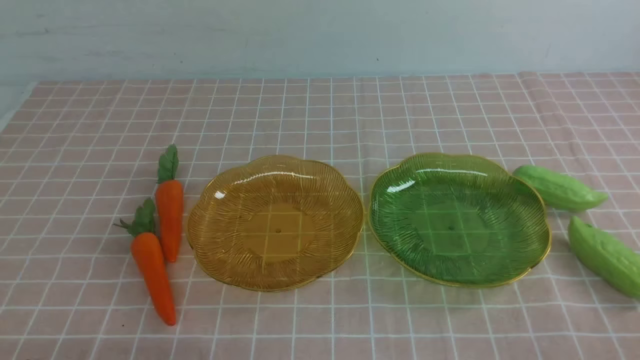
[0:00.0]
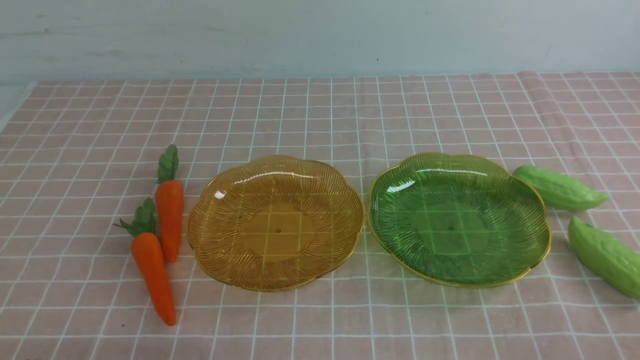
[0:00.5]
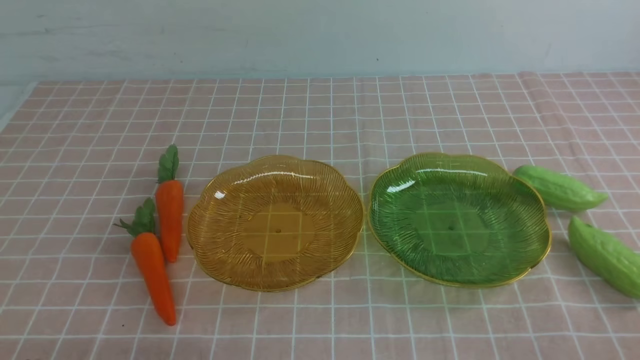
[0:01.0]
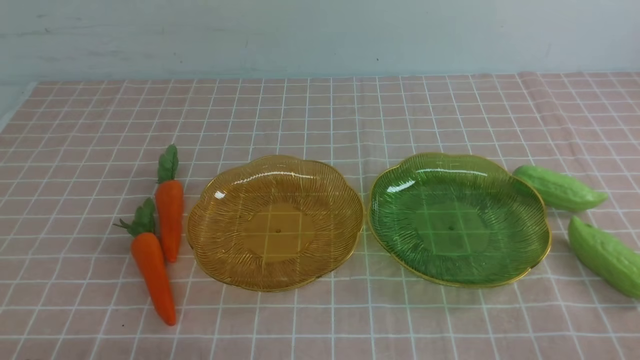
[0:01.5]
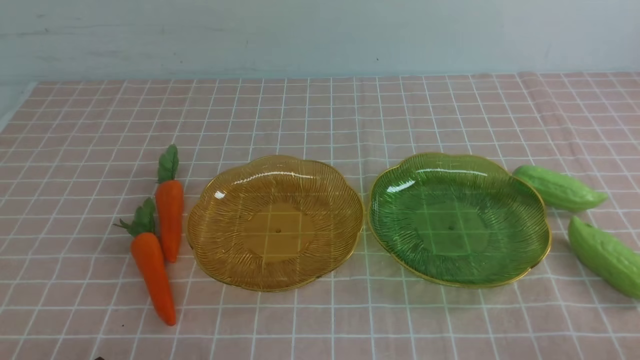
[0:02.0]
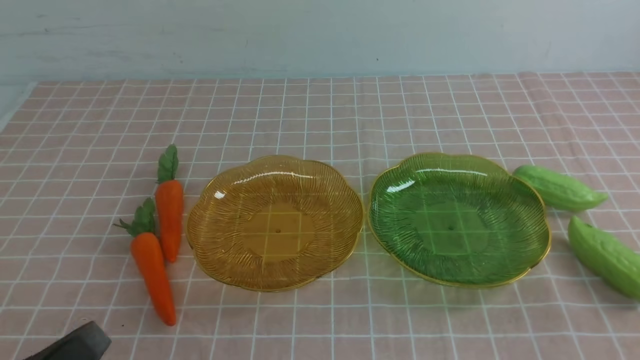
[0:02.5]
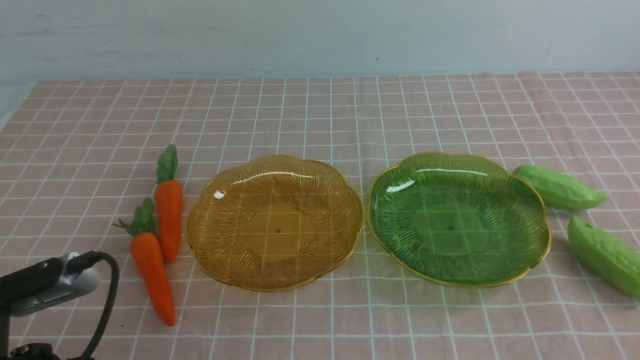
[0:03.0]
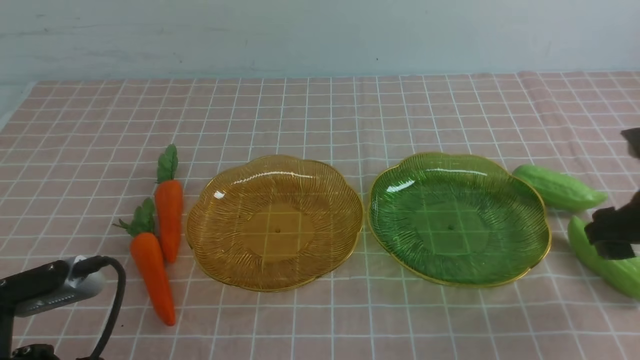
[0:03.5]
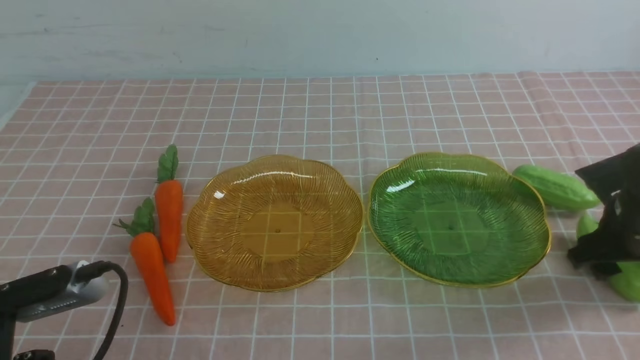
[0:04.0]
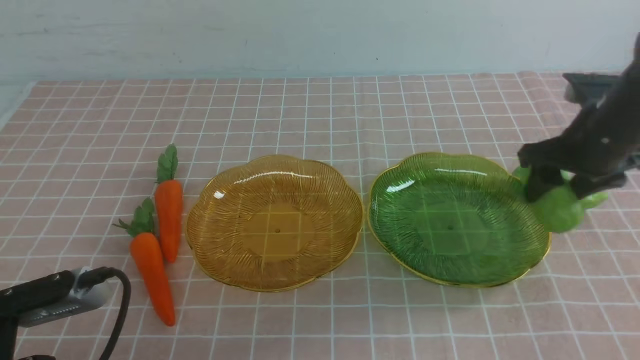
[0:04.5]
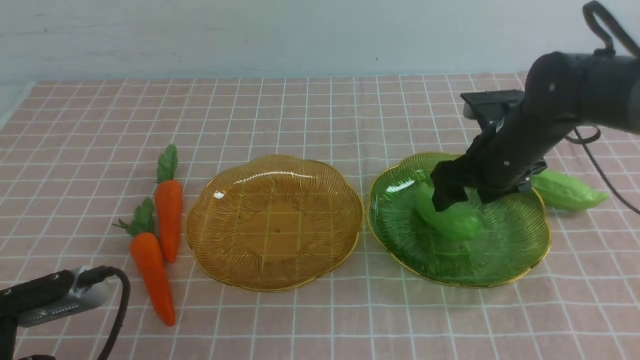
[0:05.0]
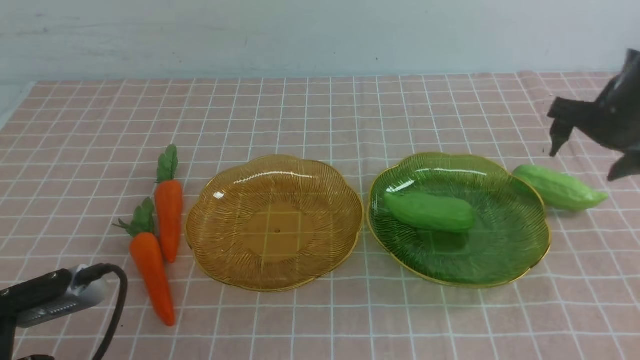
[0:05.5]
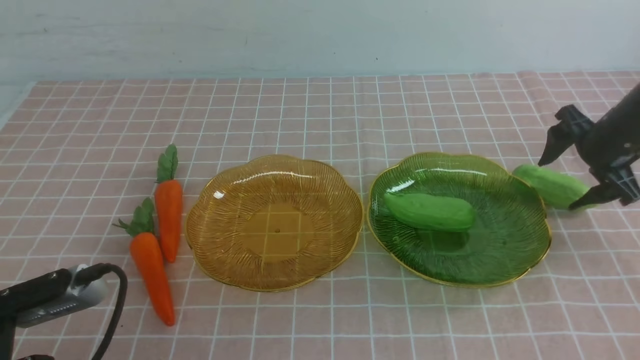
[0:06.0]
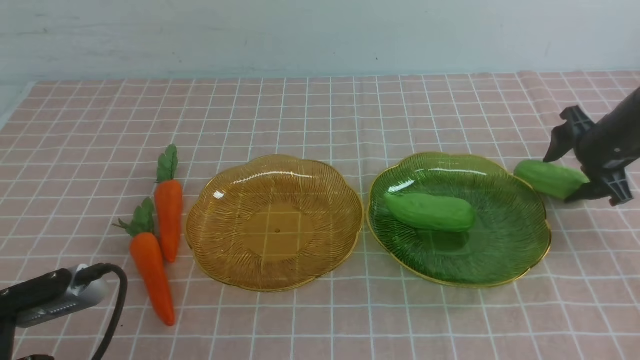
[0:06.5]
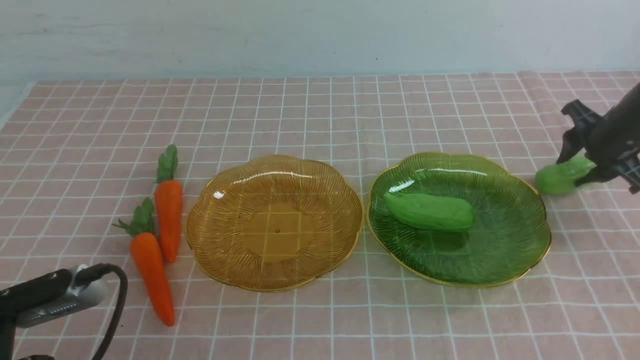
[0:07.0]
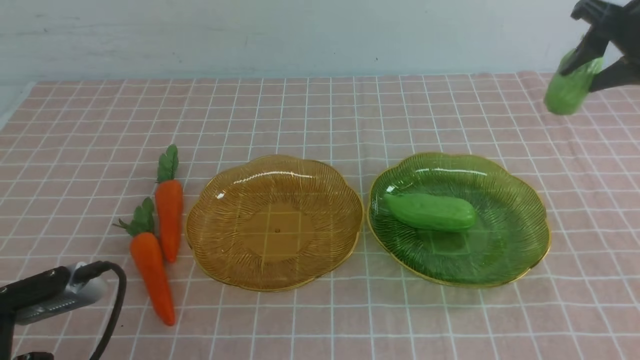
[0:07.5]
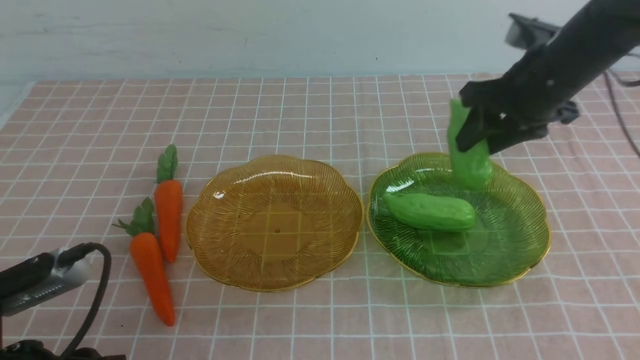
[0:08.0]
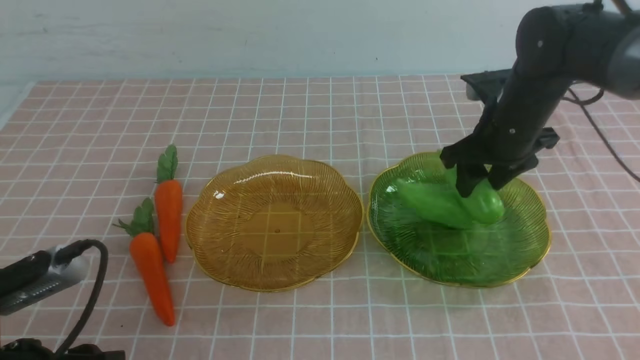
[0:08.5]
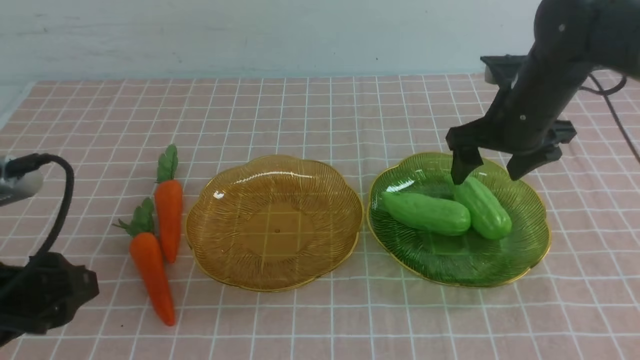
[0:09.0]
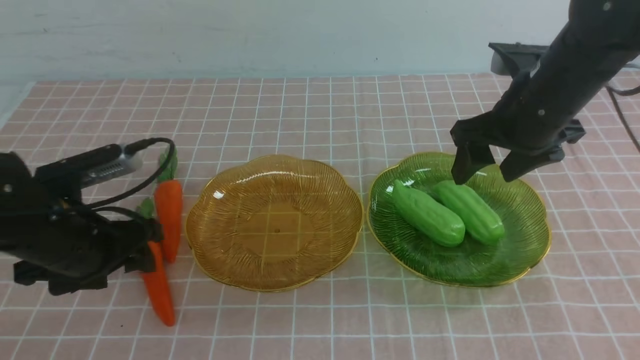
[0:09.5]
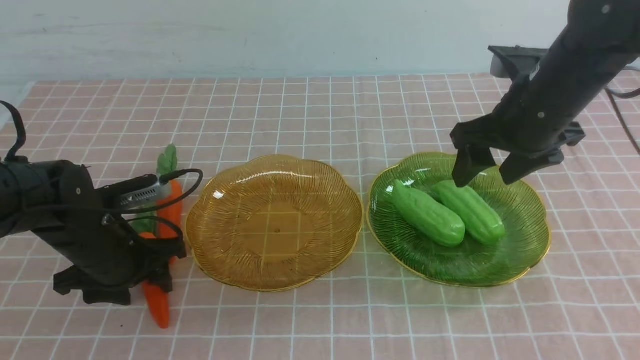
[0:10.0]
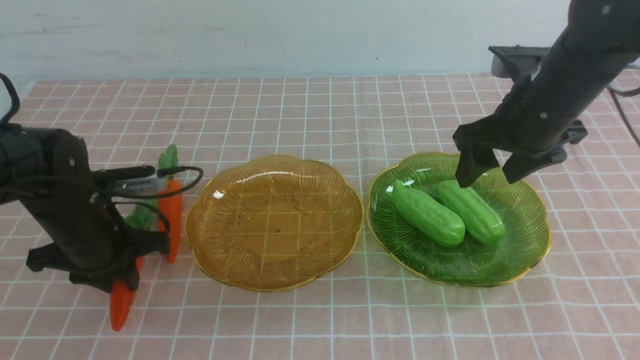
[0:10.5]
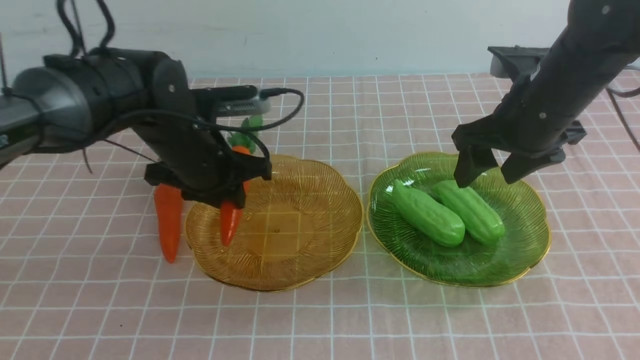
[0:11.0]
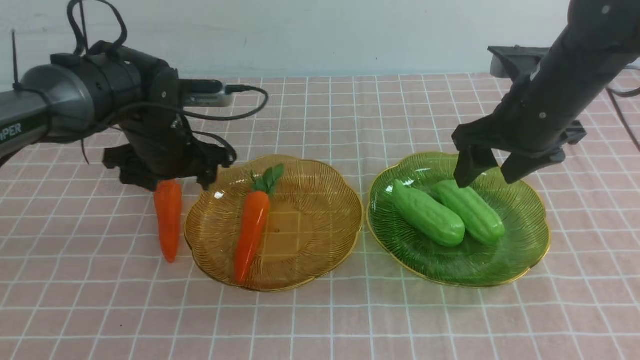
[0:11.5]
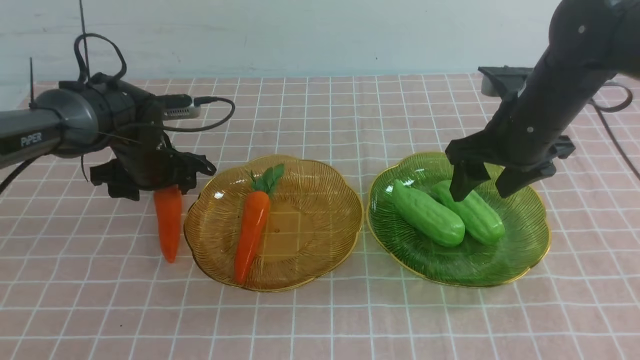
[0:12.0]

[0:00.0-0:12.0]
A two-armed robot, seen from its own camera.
Step, 0:00.0 to 0:05.0: use the right arm to grab a chayote and put it into the right plate.
Step, 0:05.5 to 0:08.5: use the right arm to grab a chayote and put it into the right plate.
Step, 0:09.0 to 0:11.0: use the left arm to grab a carrot and put it into the left plate.
0:02.0 to 0:04.0: The left gripper goes some 10 cm forward and upward, and opens. Meanwhile the right gripper moves forward, approximately 30 cm, and opens up.
0:04.0 to 0:06.0: The right gripper goes roughly 10 cm forward, to the right and downward.
0:06.0 to 0:08.0: The right gripper is displaced to the left and upward by some 15 cm.
0:08.0 to 0:10.0: The right gripper heads upward, covering roughly 5 cm; the left gripper heads forward, covering roughly 20 cm.
0:10.0 to 0:12.0: The left gripper shifts about 10 cm forward, and opens, then closes again.

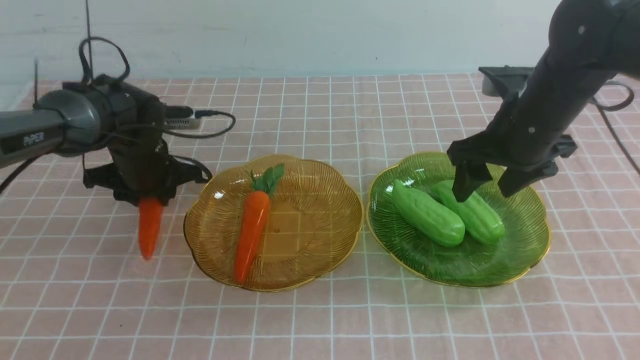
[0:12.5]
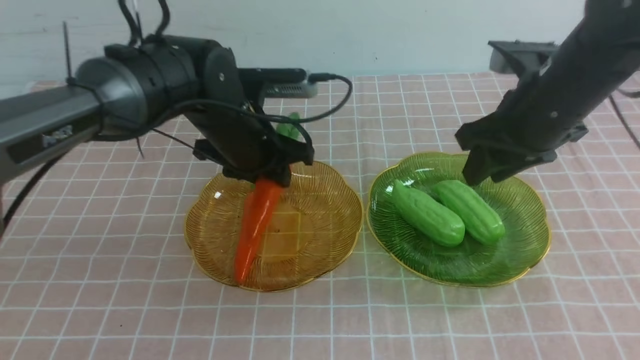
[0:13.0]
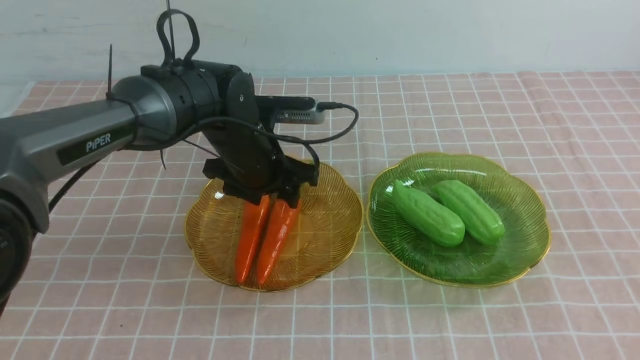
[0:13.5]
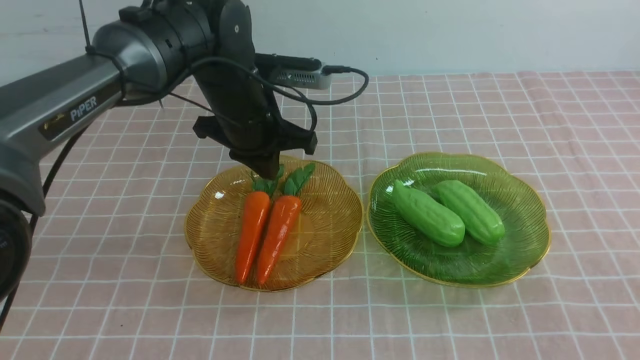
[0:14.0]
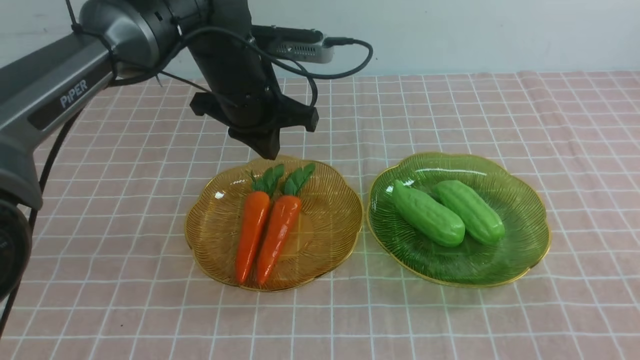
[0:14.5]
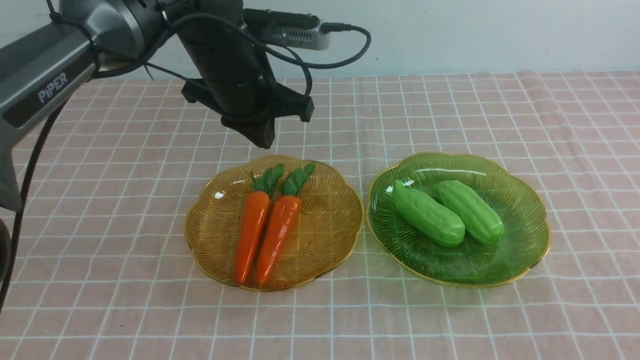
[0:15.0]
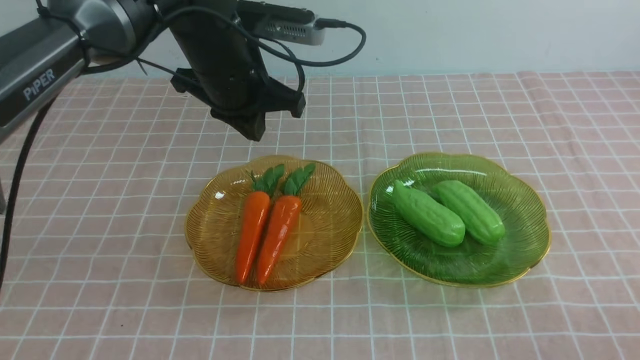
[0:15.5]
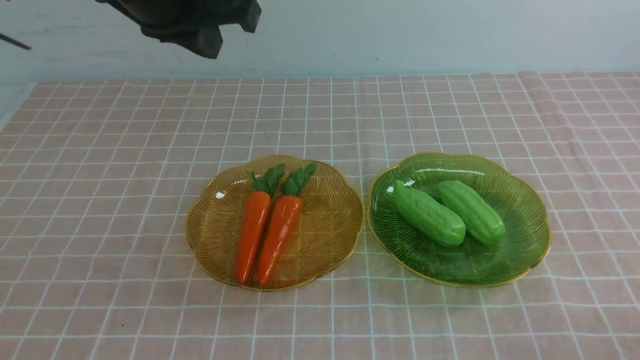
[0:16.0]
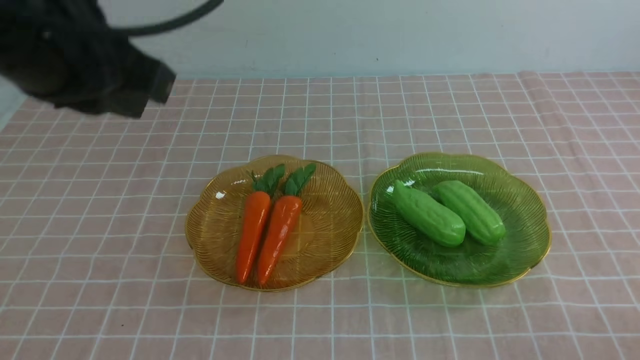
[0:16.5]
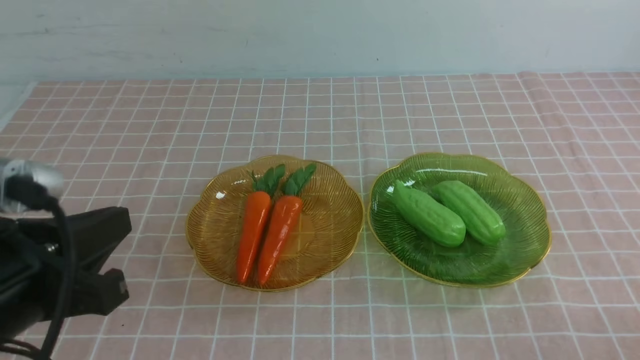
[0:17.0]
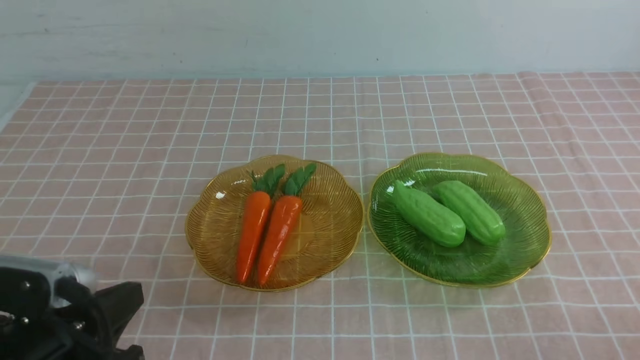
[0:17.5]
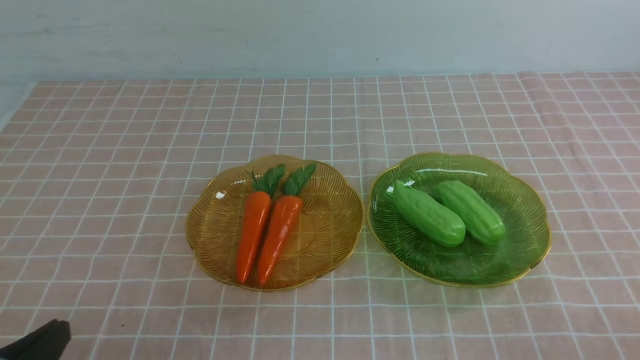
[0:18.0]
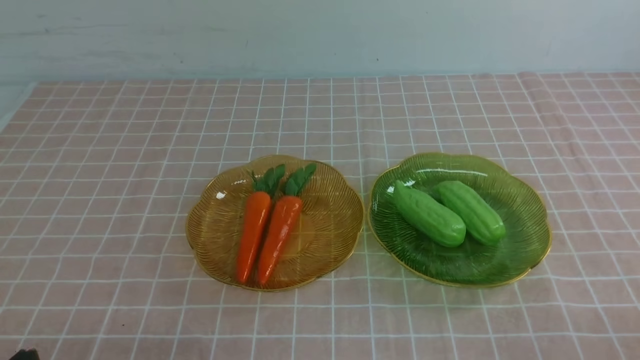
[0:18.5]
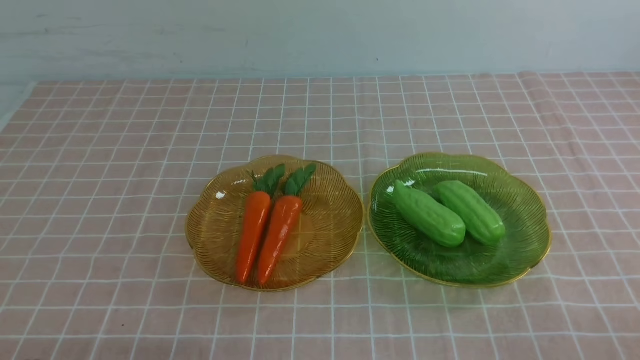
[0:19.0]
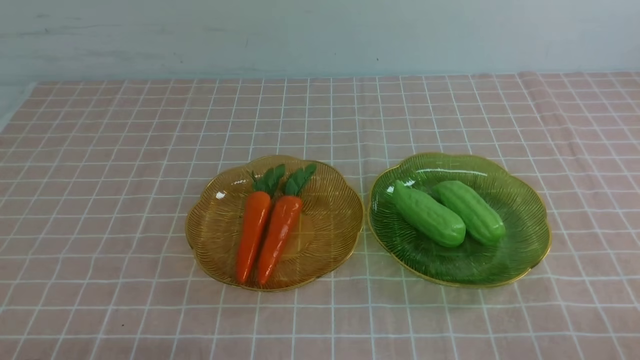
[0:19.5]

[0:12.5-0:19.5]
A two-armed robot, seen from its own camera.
0:12.5 to 0:14.5: The right gripper is displaced backward by about 30 cm, and closes, while the left gripper shifts approximately 5 cm upward, and closes its fingers.
0:14.5 to 0:16.0: The left gripper shifts approximately 25 cm backward and to the left, while the right gripper travels downward by approximately 10 cm.
0:16.0 to 0:17.5: The left gripper travels downward and backward by approximately 25 cm.
0:17.5 to 0:19.5: Both grippers stay put.

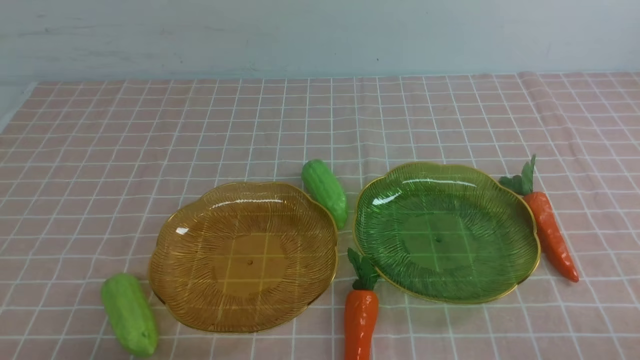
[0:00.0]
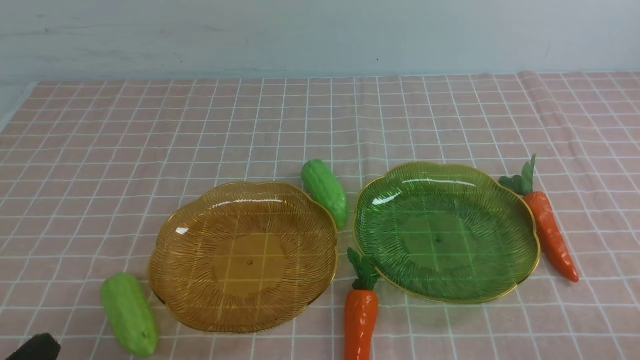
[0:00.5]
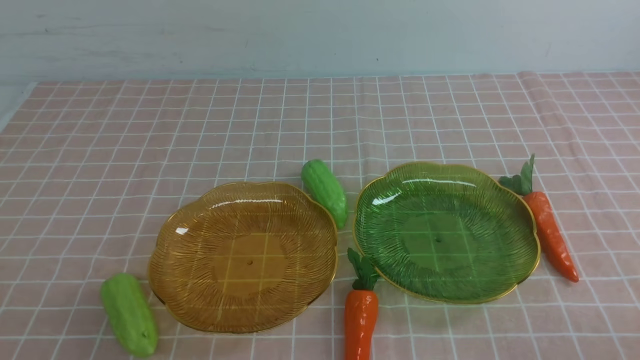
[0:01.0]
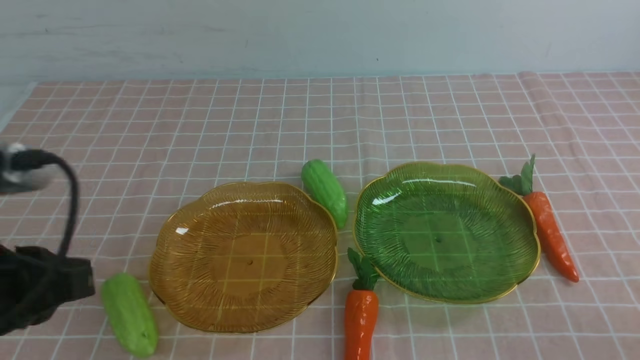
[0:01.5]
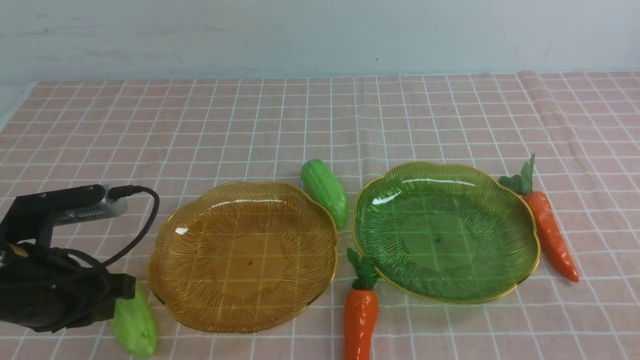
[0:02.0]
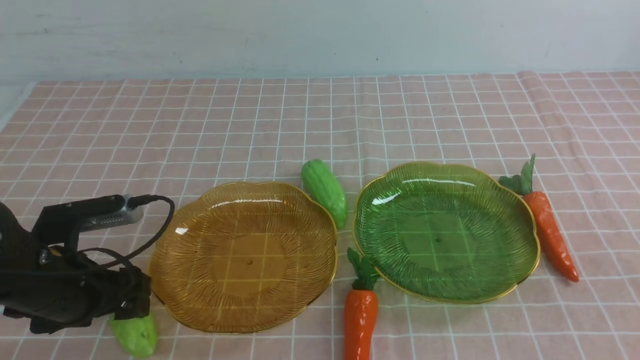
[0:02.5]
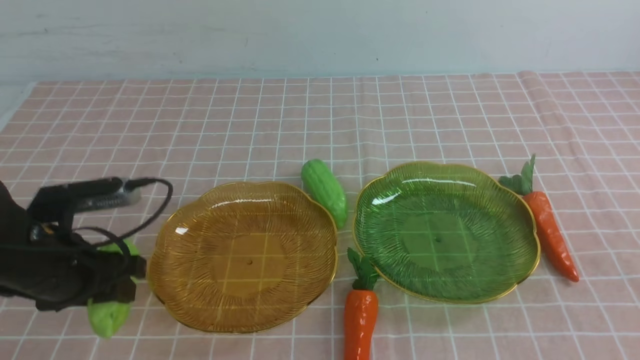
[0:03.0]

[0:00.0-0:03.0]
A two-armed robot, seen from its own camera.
0:00.0 to 0:01.5: The left gripper shifts approximately 15 cm upward and forward.
0:01.5 to 0:03.0: The left gripper goes some 15 cm forward and downward, and opens up; the right gripper is displaced upward by roughly 10 cm.
